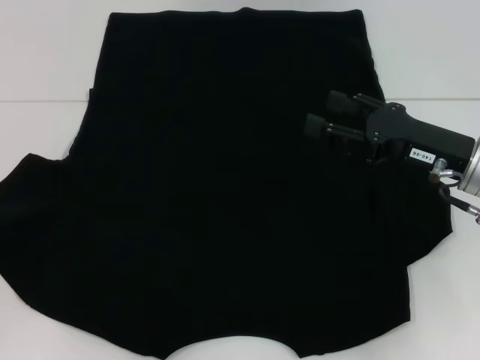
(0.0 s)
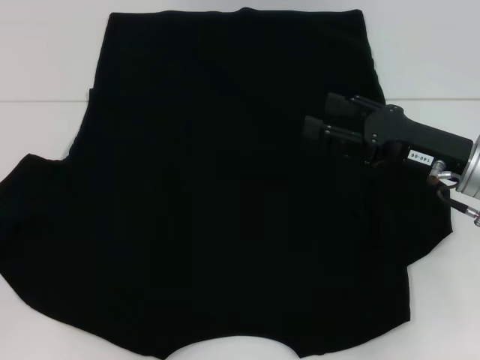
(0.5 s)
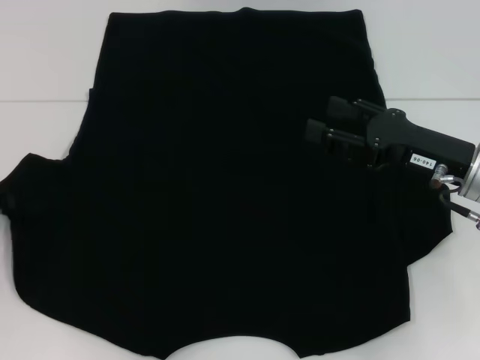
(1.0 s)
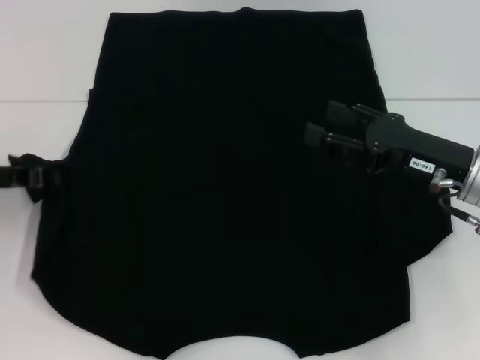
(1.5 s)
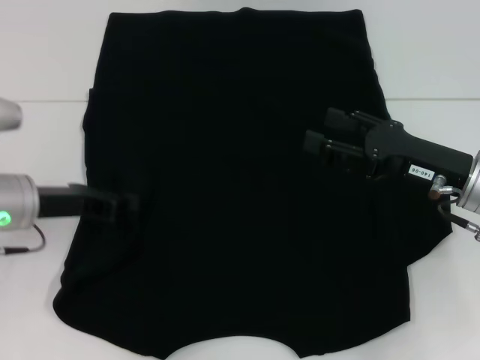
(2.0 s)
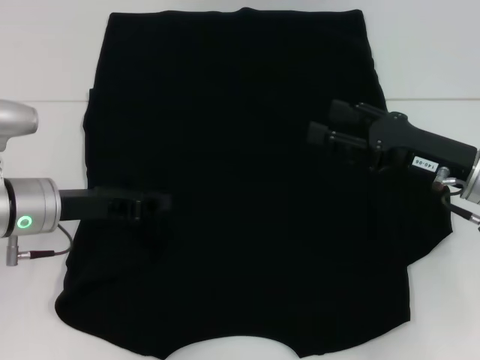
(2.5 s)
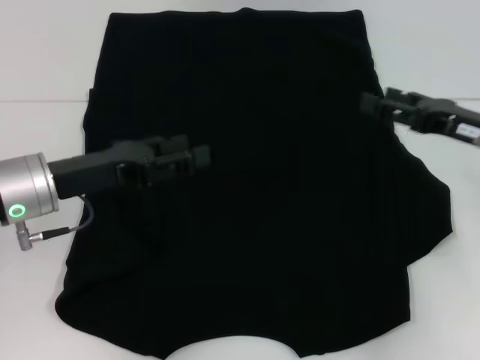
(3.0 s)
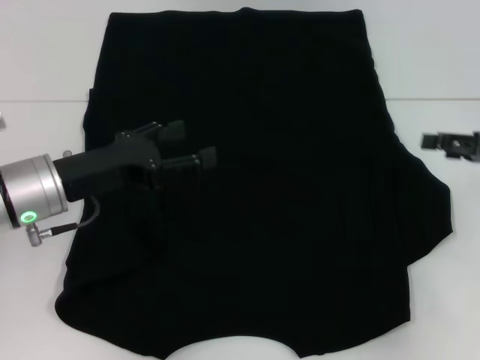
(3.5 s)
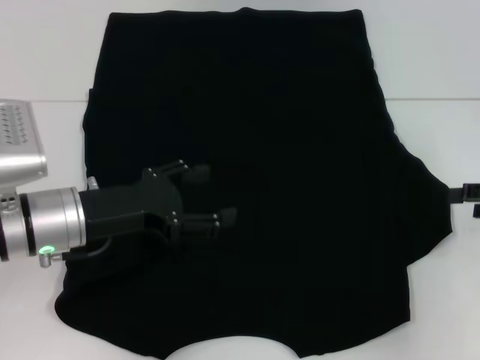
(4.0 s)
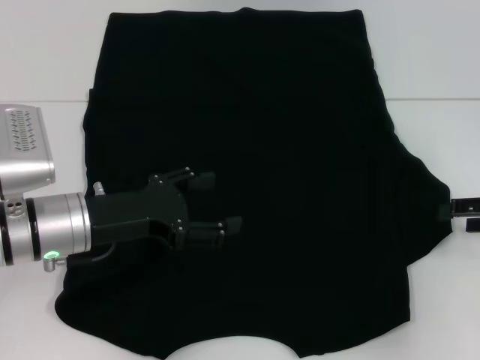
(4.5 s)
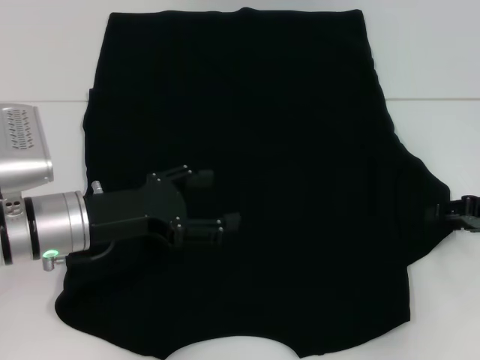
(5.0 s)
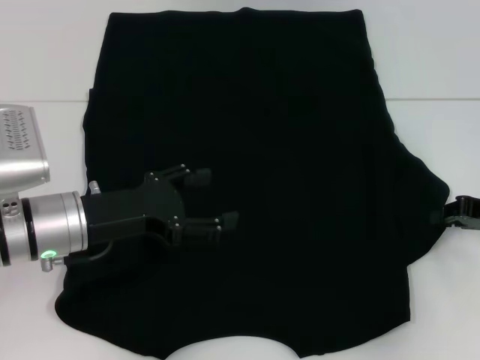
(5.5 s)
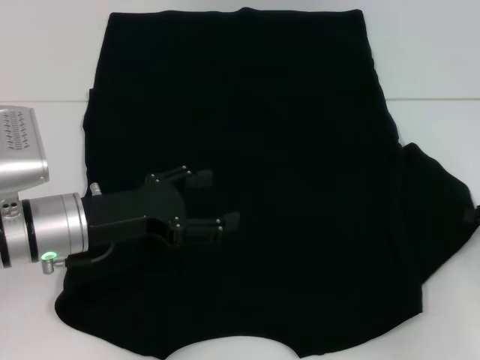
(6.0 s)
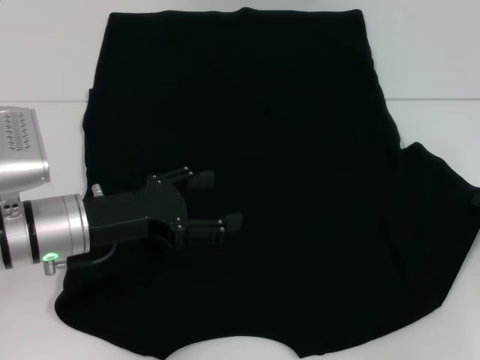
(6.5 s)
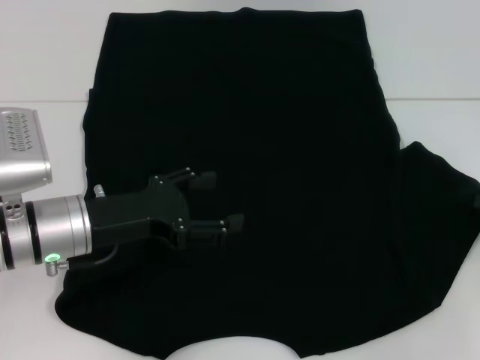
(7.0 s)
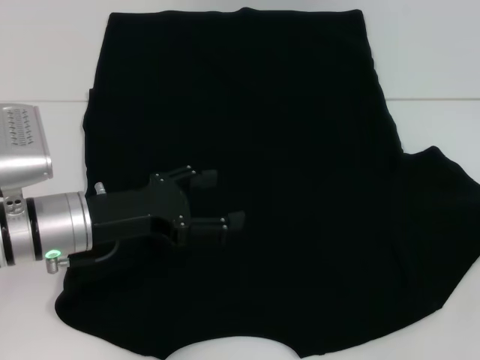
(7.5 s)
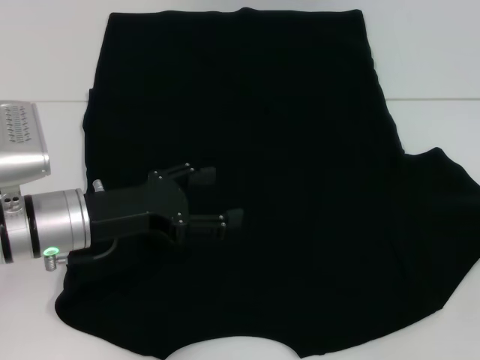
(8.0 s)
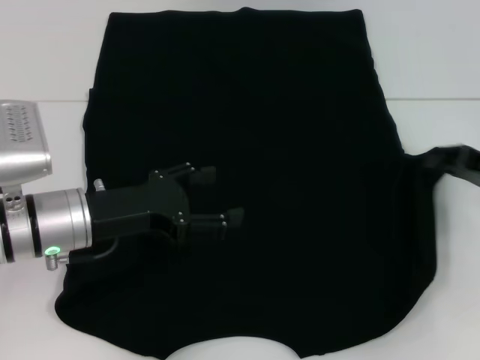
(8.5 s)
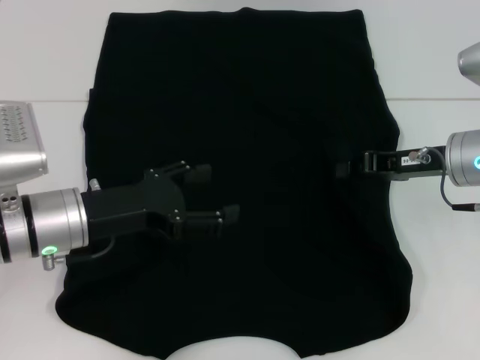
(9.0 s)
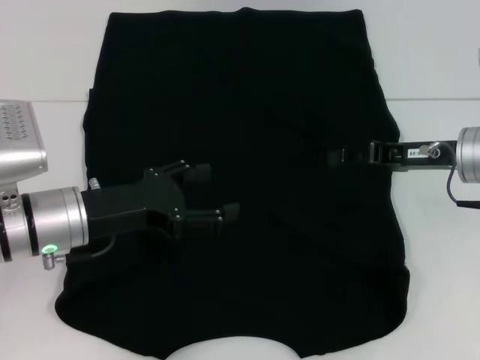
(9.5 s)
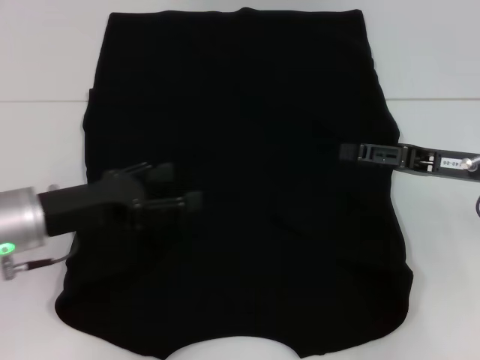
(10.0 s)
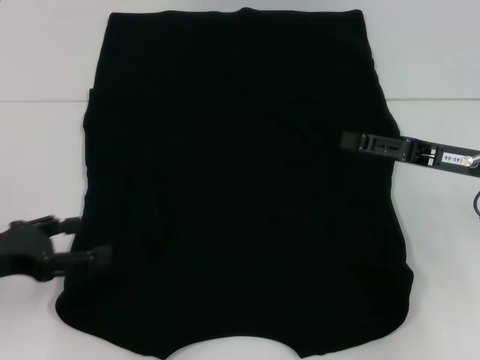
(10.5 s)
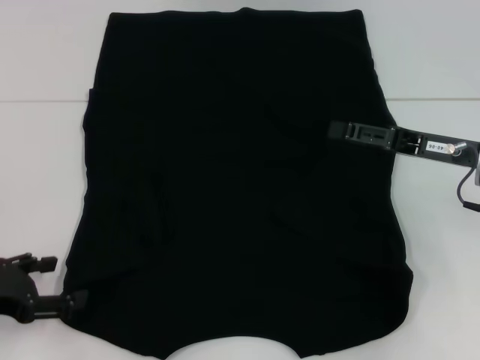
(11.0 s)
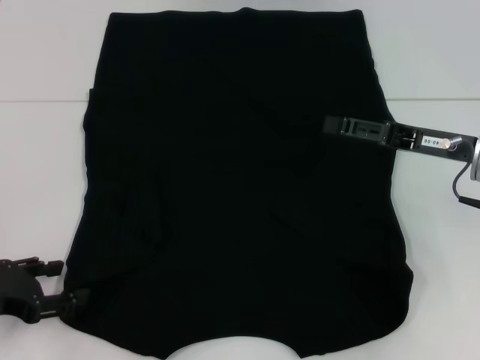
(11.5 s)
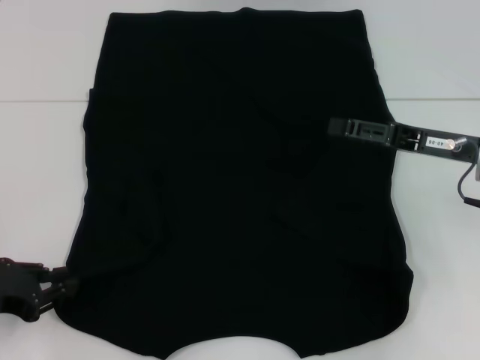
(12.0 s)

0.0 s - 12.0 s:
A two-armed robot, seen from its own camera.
Step, 0.0 s - 2.0 s: Fold the bottom left sleeve with your left hand.
Step, 2.5 s - 9.5 s: Fold the bottom right sleeve with your right hand.
0.0 s - 2.0 s: The left gripper shifts some 15 cm to the right and forward.
2.0 s - 4.0 s: The left gripper moves roughly 5 cm, and opens its fingers. The right gripper shifts some 15 cm to the right.
4.0 s - 6.0 s: The right gripper closes its fingers.
6.0 s - 8.0 s: There are only small adjustments of the grippers.
8.0 s - 10.0 s: The right gripper heads to the left, covering approximately 10 cm, and opens its fingers.
10.0 s - 12.0 s: The left gripper travels to the left and backward by about 10 cm, and closes up.

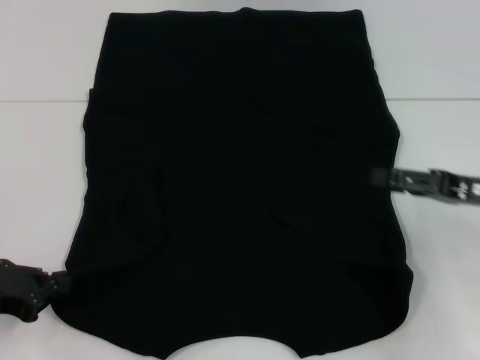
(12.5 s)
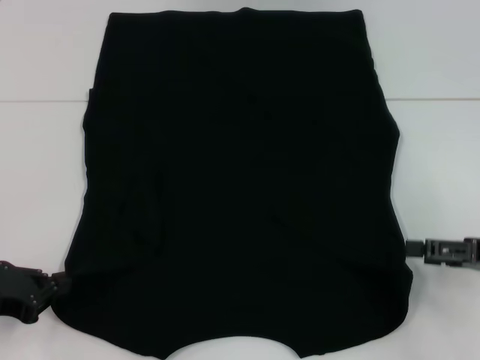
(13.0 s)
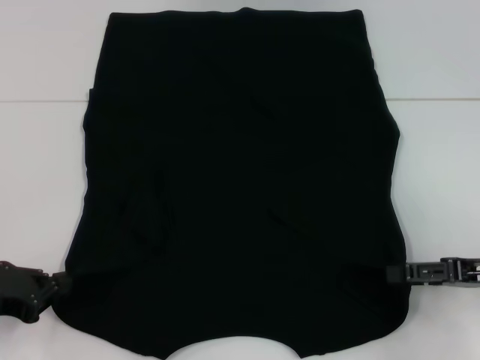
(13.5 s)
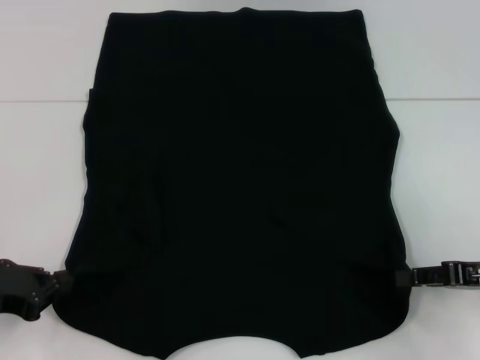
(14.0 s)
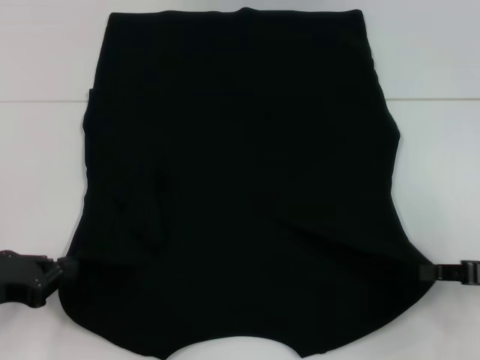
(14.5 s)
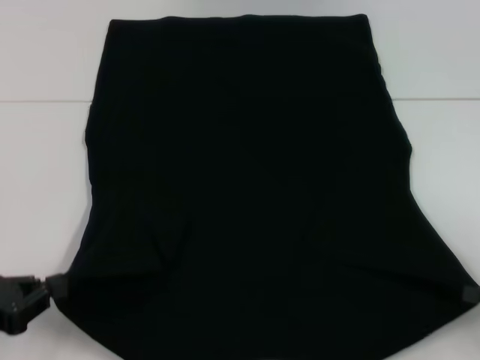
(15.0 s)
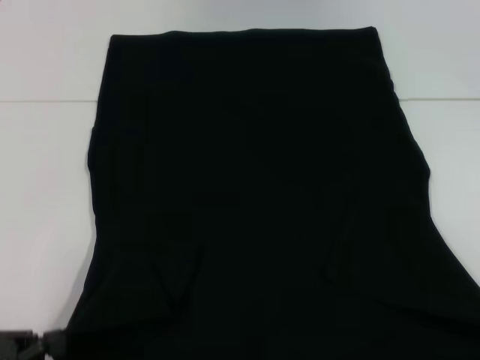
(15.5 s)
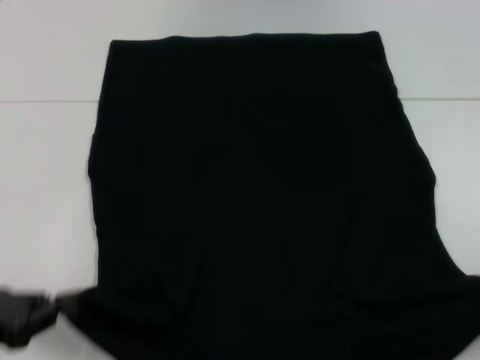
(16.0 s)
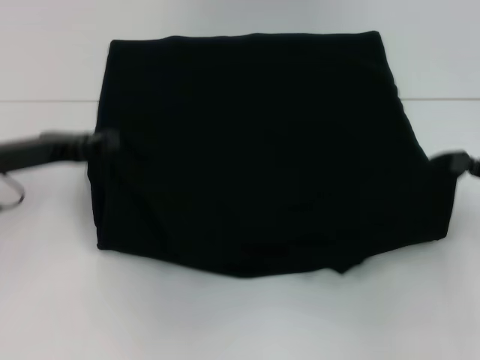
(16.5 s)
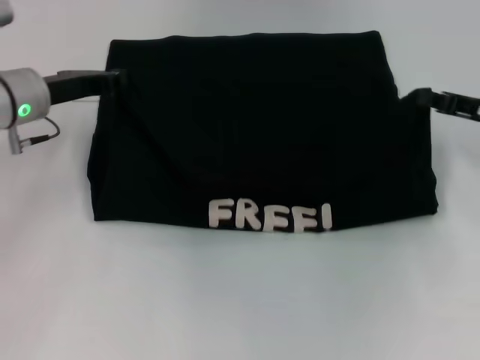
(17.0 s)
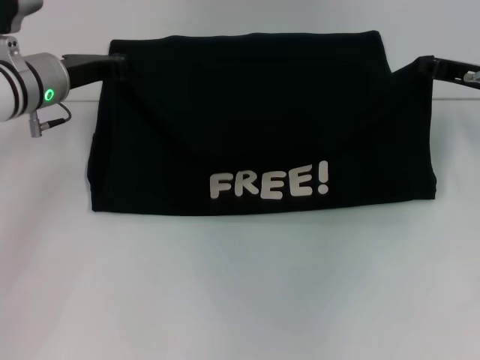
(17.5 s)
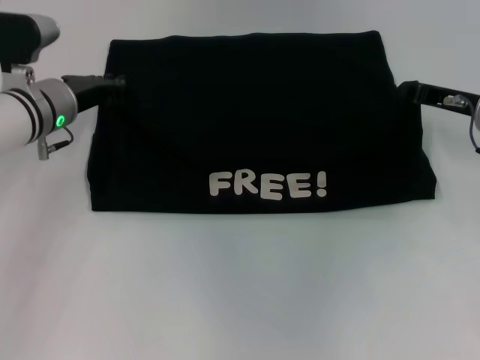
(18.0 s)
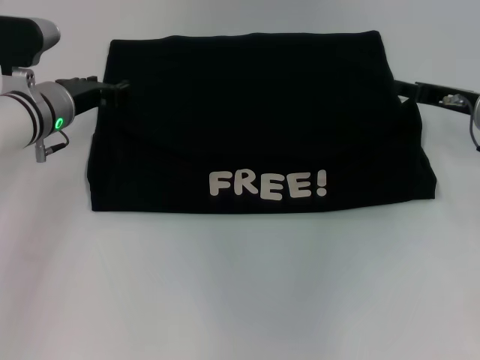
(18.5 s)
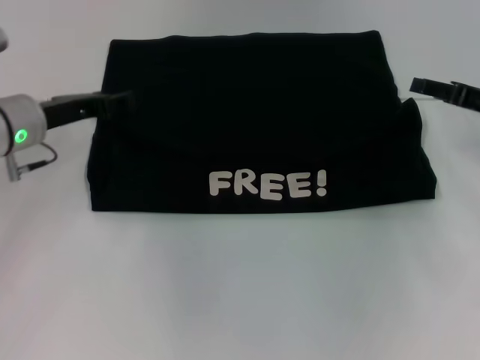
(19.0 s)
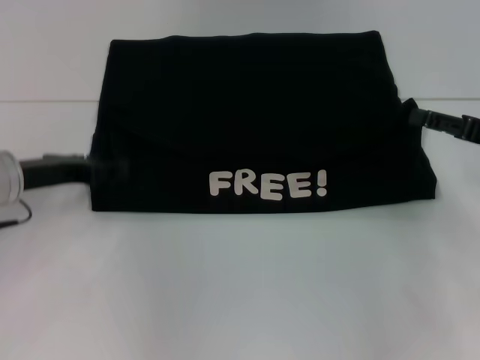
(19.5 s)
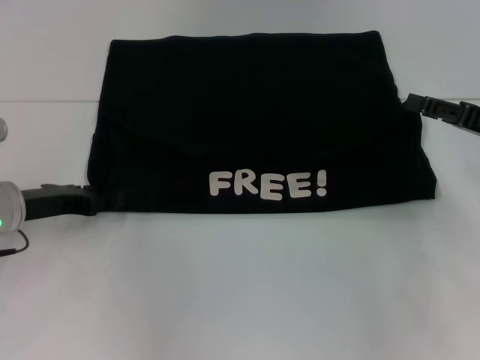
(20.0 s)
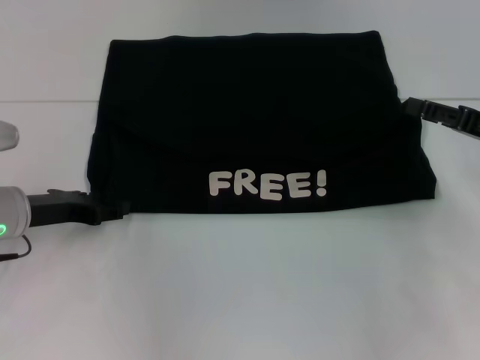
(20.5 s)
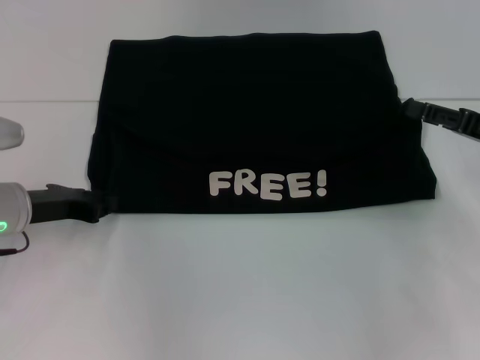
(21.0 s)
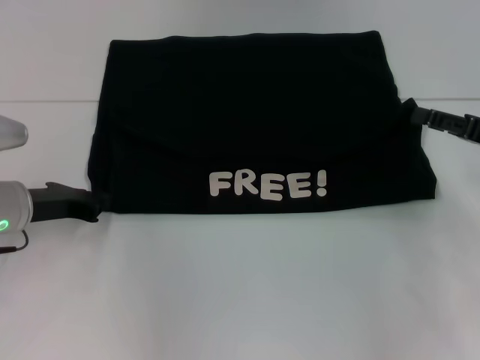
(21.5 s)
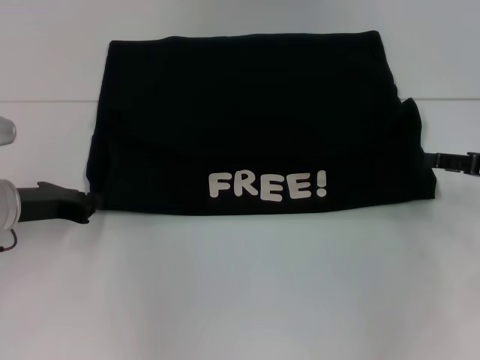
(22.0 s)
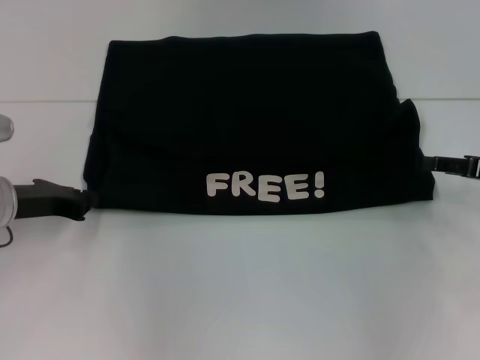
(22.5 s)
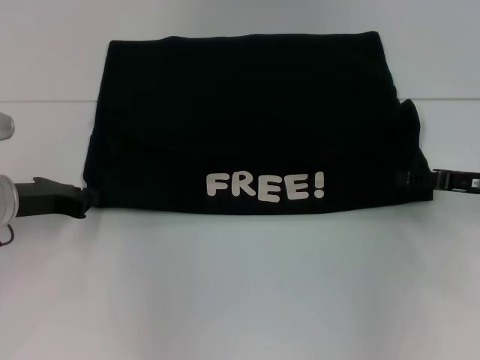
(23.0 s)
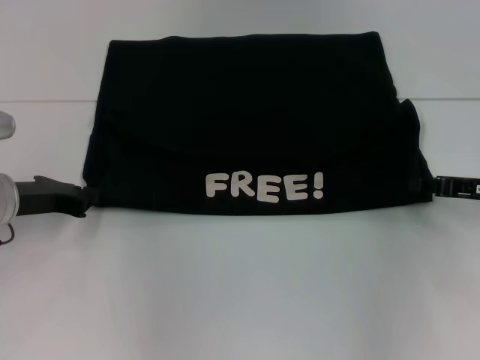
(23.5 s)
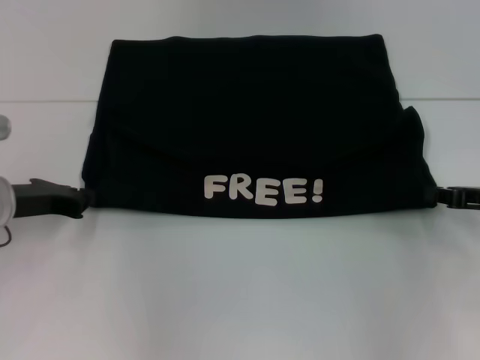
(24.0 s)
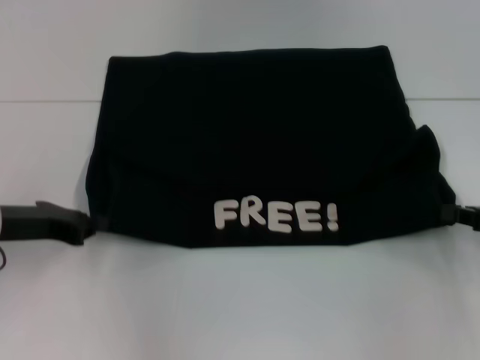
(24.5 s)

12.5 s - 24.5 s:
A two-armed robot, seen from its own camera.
Step, 13.5 s - 14.0 s: Grab the bottom right corner with your right hand.
Step, 14.5 s - 18.5 s: Fold the clothes with your left hand.
Step, 14.5 s - 18.5 s: Fold the clothes with your right hand.
12.5 s - 14.5 s: The right gripper changes place by approximately 5 cm, and closes its fingers.
14.5 s - 16.5 s: The right gripper travels backward and back again, some 10 cm each way. Meanwhile the left gripper moves forward and upward, about 10 cm.
16.5 s - 18.5 s: The left gripper travels forward and to the right by about 10 cm, and opens up, while the right gripper travels forward and to the left by about 15 cm, and opens its fingers.
18.5 s - 20.5 s: The grippers both shift backward by roughly 10 cm.
20.5 s - 22.5 s: The left gripper closes.
22.5 s - 24.5 s: The right gripper moves some 5 cm, and closes.

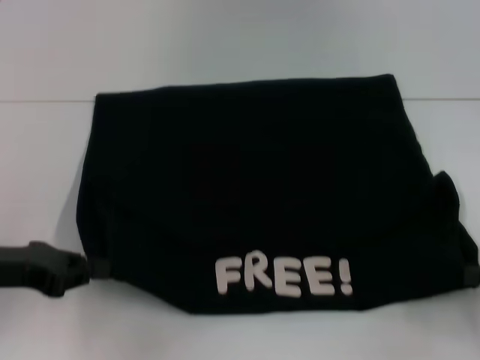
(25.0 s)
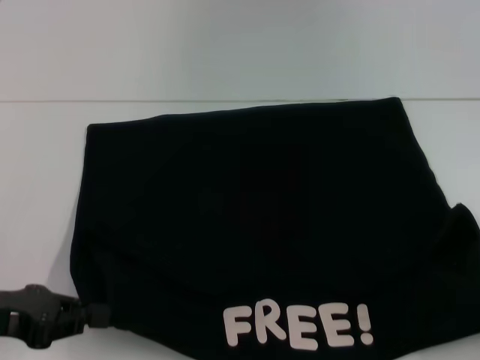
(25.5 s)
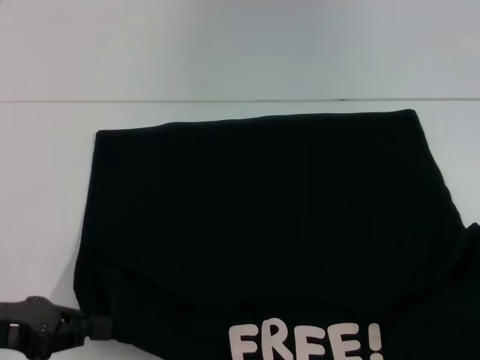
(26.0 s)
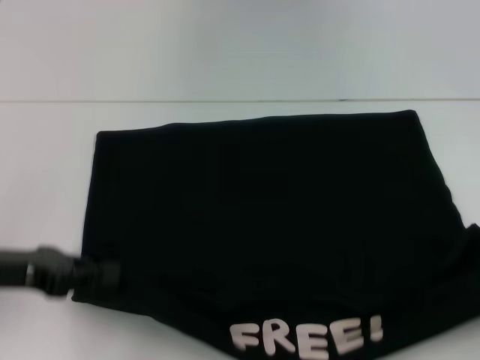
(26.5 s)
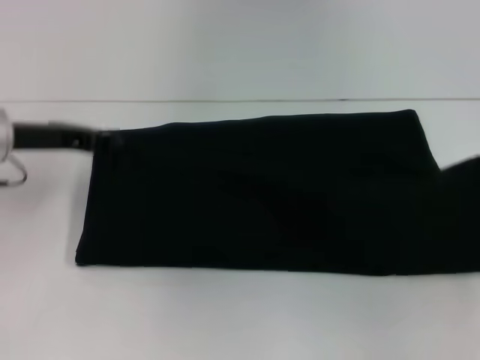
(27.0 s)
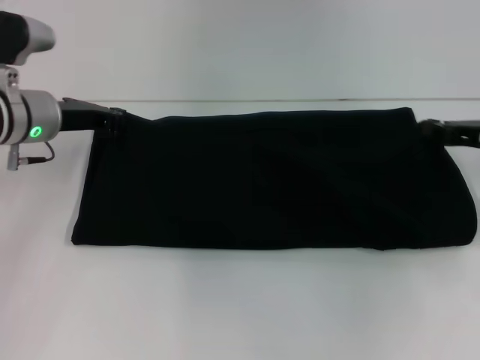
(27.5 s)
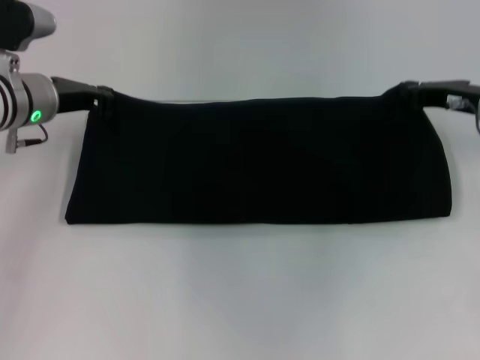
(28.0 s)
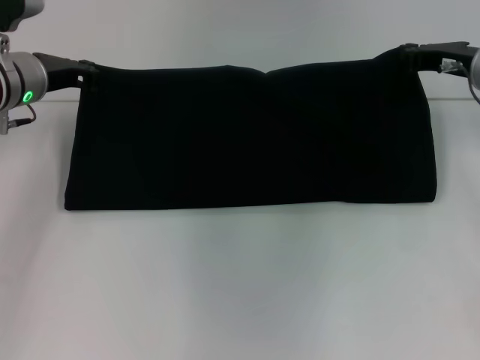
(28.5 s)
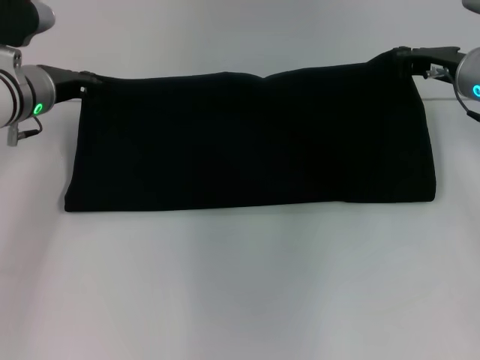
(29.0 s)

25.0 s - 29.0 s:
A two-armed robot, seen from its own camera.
25.0 s - 27.0 s: The right gripper moves forward, some 10 cm; the left gripper travels forward by about 10 cm.
27.0 s - 29.0 s: The left gripper goes roughly 5 cm forward, while the right gripper goes some 20 cm forward and to the left.
